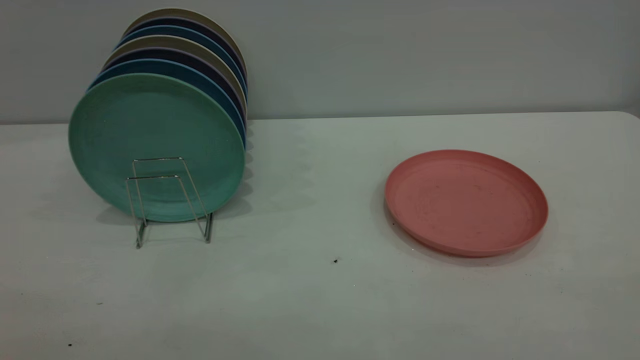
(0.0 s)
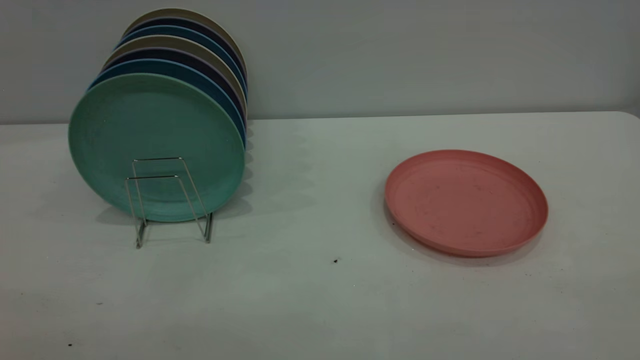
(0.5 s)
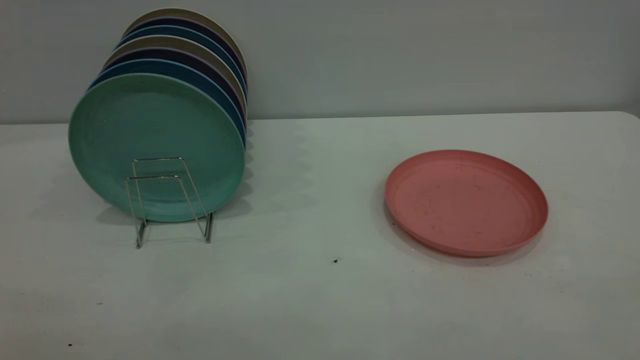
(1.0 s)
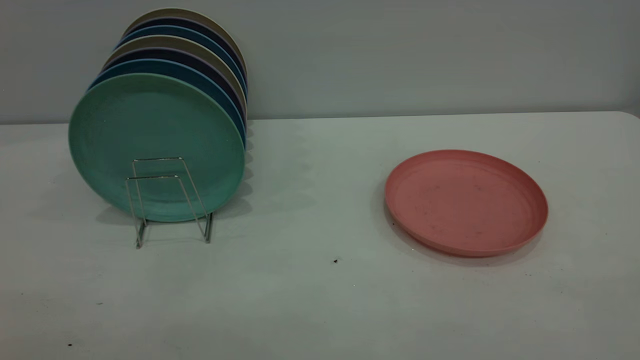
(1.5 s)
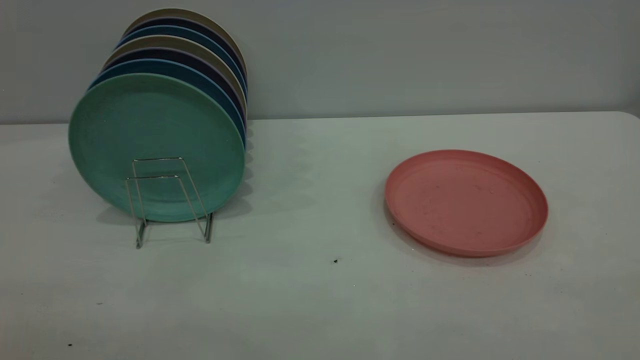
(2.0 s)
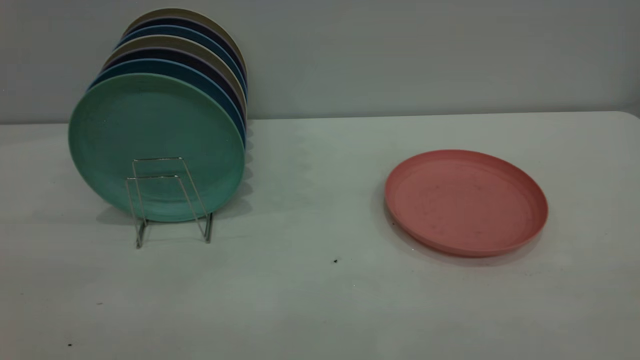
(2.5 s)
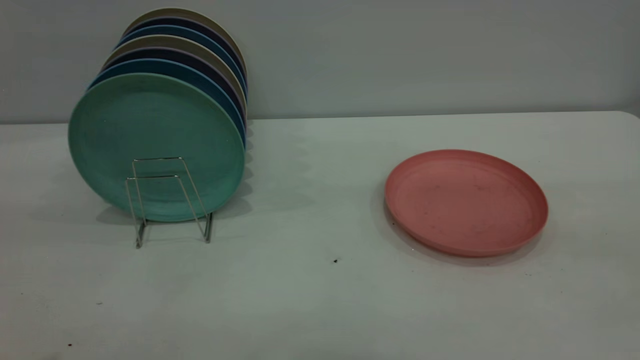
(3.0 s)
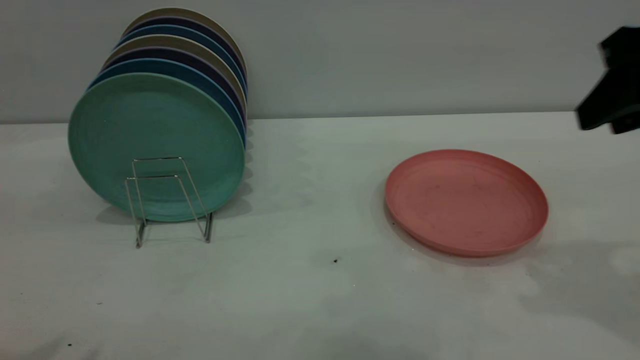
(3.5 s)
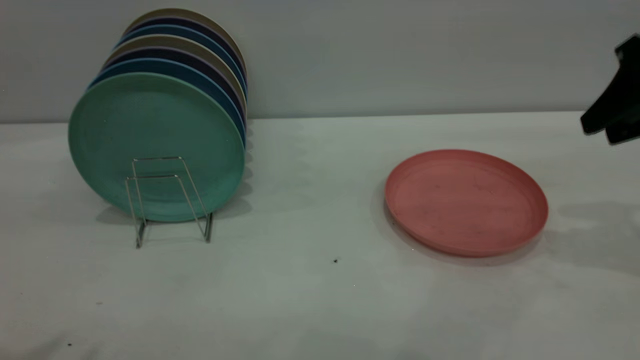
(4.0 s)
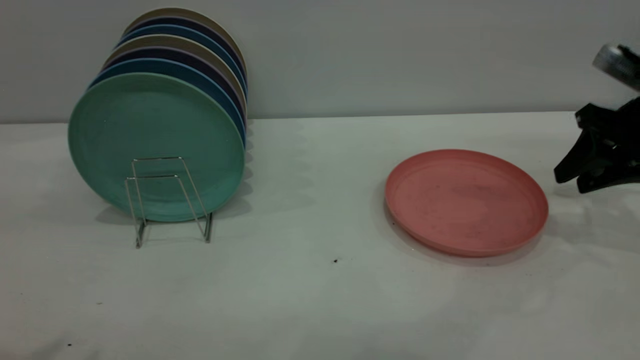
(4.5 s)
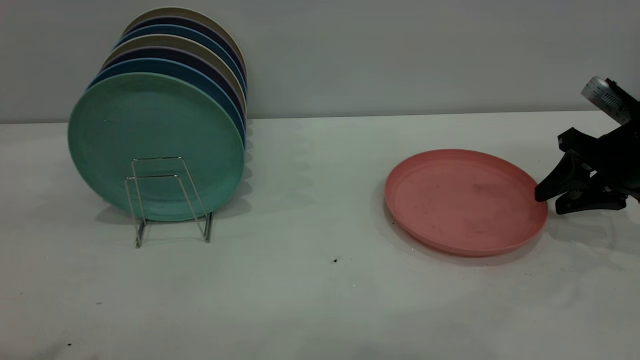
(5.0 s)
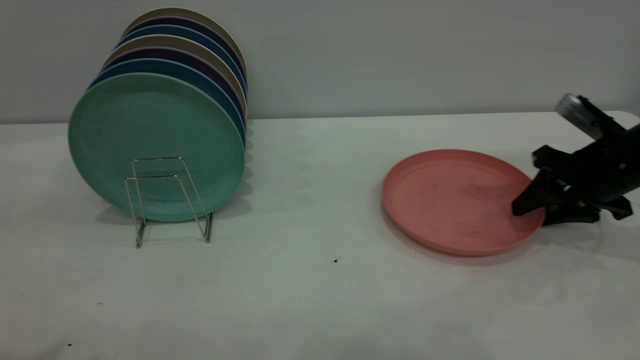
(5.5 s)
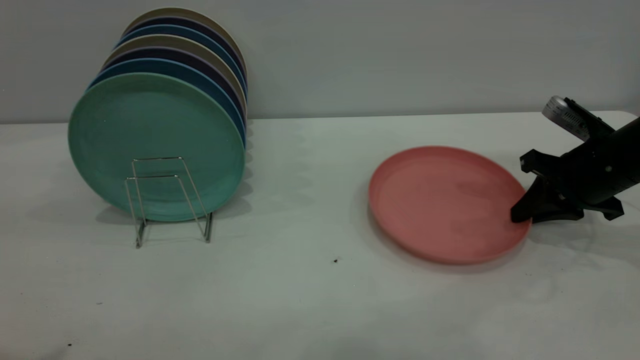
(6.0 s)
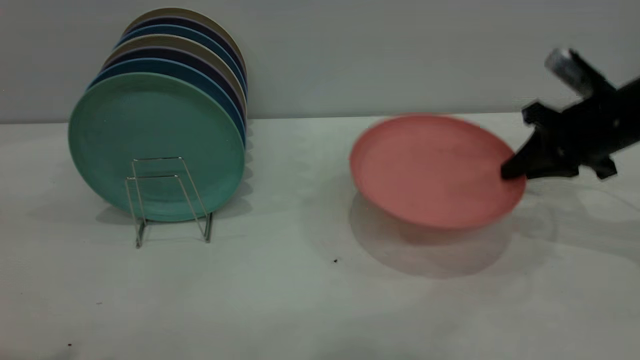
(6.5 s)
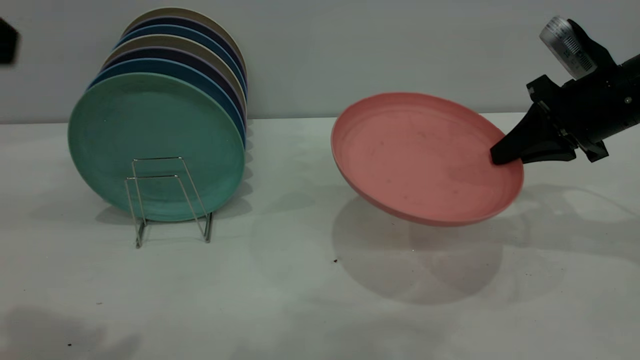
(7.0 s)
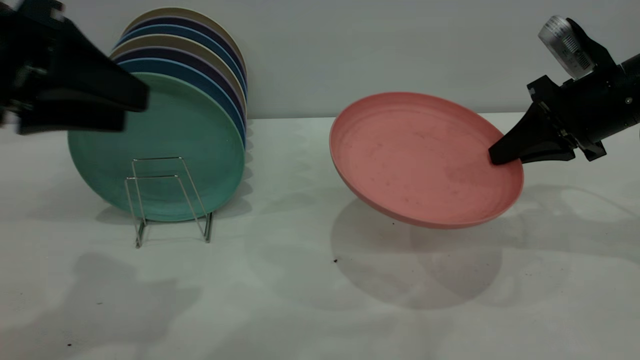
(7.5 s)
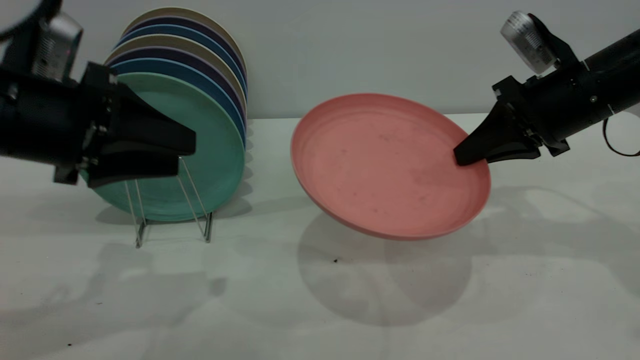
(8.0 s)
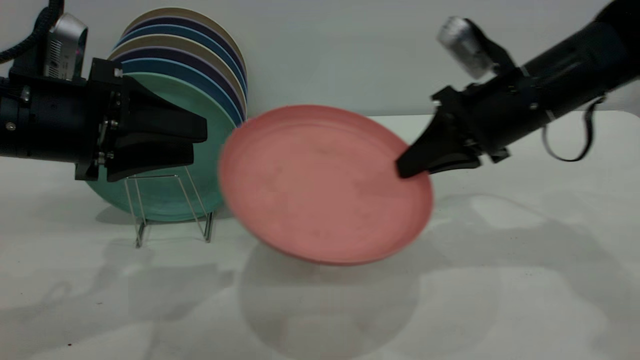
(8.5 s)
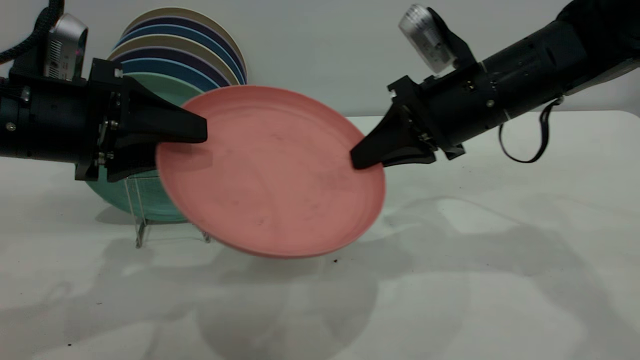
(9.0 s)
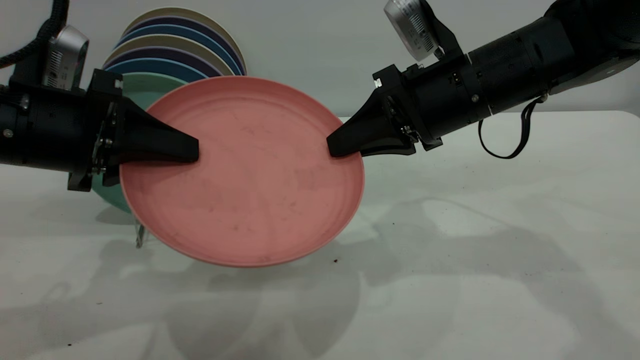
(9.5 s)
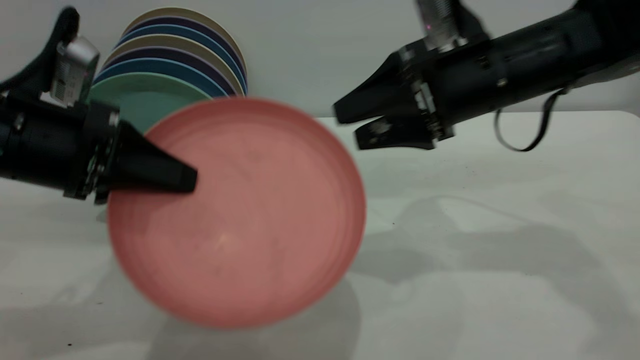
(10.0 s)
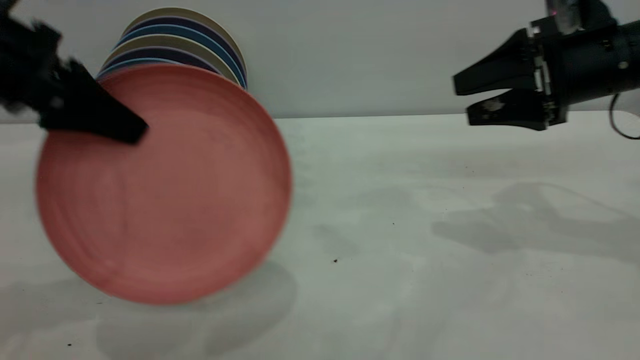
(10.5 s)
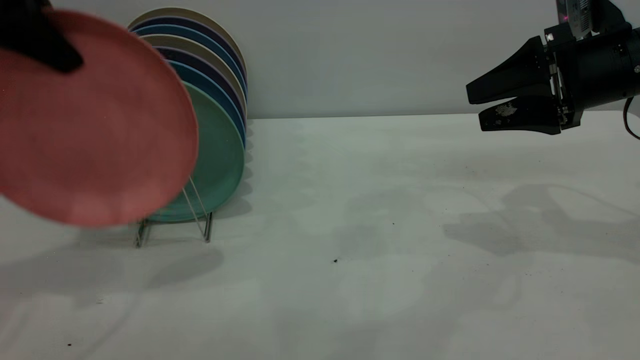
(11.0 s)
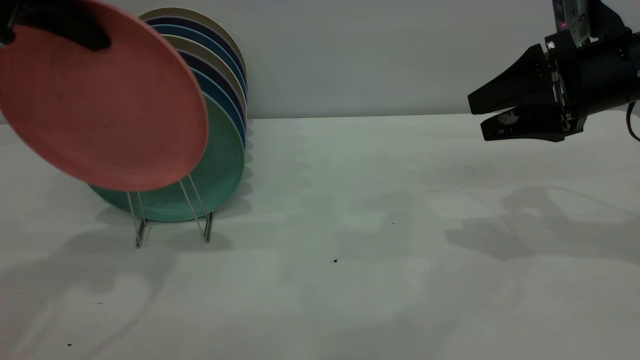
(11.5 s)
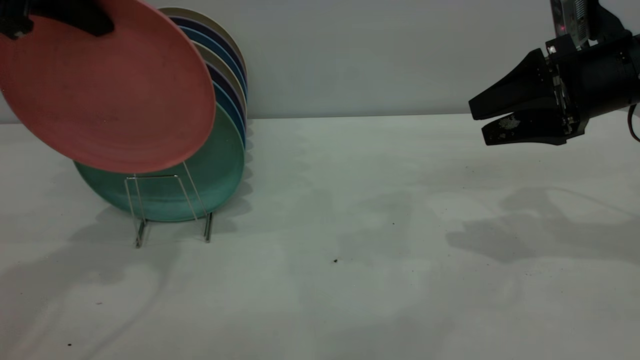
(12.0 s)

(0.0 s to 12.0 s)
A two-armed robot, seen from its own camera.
Task of the whole recording: the right gripper grasp the pink plate, the right gripper pass the pink plate to the left gripper, and the left gripper place the pink plate on the plate rack.
Step, 0.0 s - 6.5 s: Pick up the plate with the right gripper.
Step, 7.0 s - 10.0 s: Pass the plate from the right gripper to the left gripper.
2.0 s - 4.0 s: The right gripper shifts about 40 cm forward.
4.0 s - 6.0 s: The right gripper is displaced downward by some 15 cm, and closes its fingers.
6.0 s - 8.0 s: The right gripper travels upward and to the left by some 10 cm, while the left gripper moves downward and forward, approximately 25 cm.
8.0 s - 10.0 s: The right gripper moves to the left, about 10 cm, and opens up, while the left gripper closes up.
10.0 s - 12.0 s: The right gripper travels to the right by about 10 cm, while the left gripper heads upward and forward, covering approximately 20 cm.

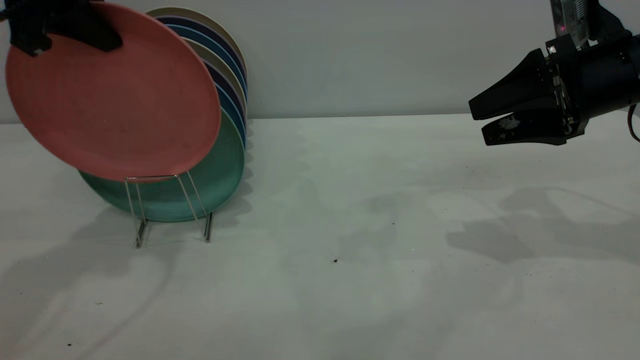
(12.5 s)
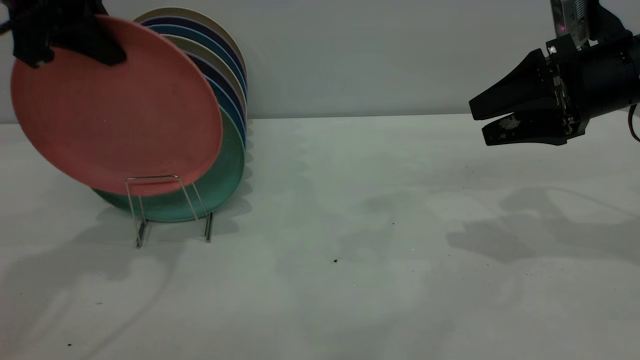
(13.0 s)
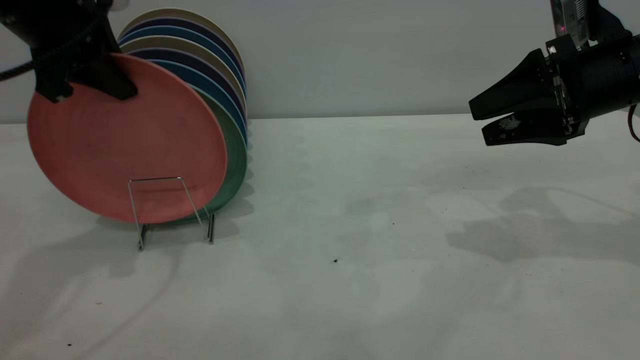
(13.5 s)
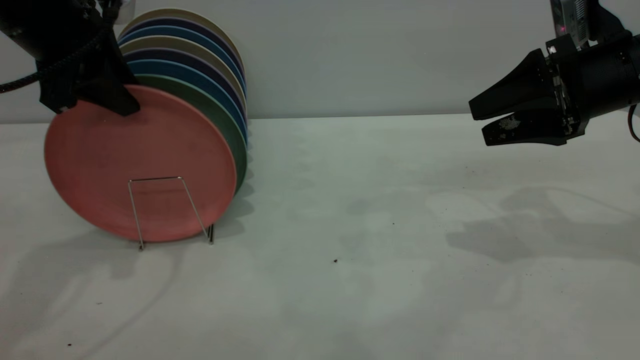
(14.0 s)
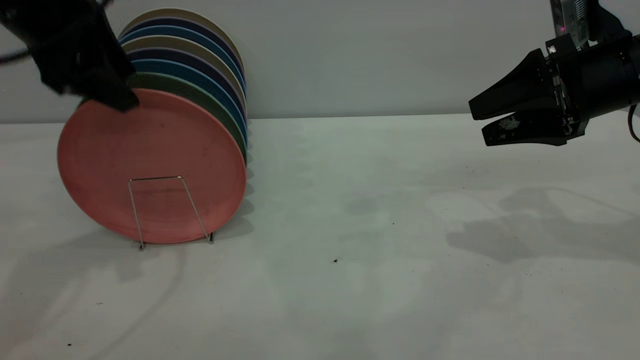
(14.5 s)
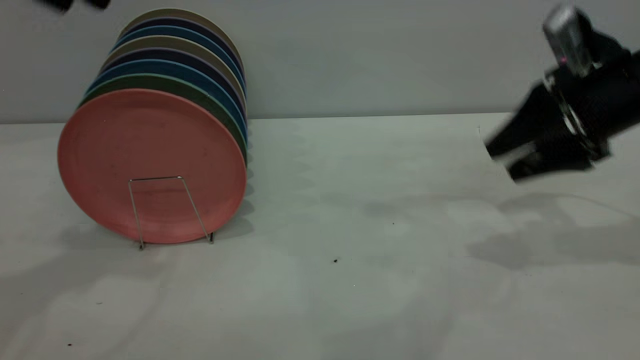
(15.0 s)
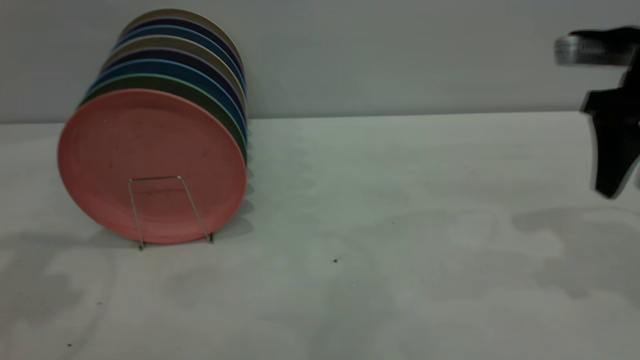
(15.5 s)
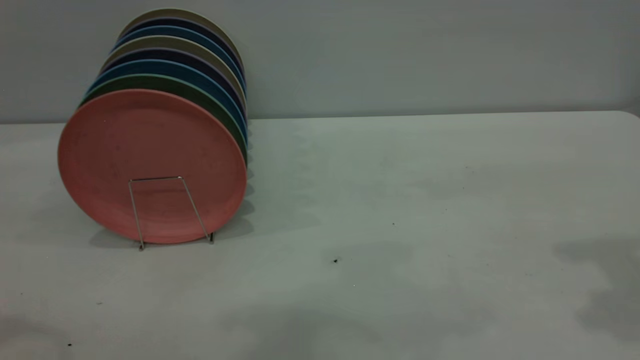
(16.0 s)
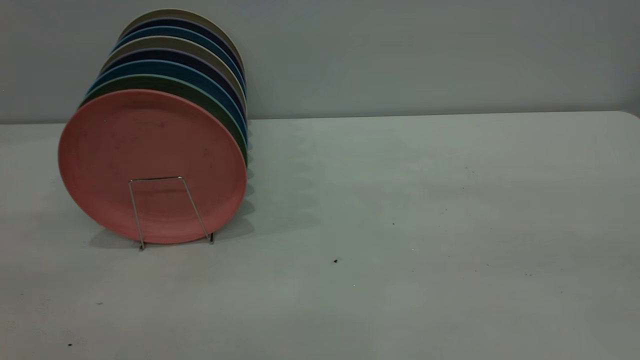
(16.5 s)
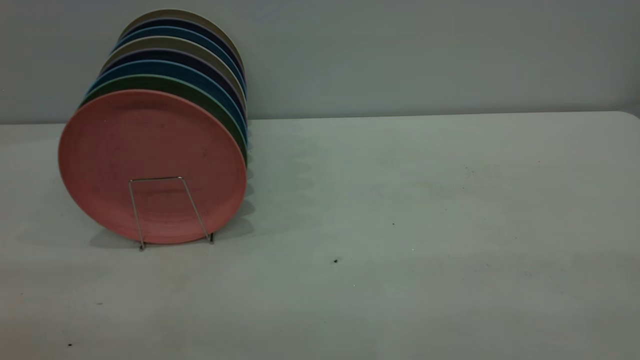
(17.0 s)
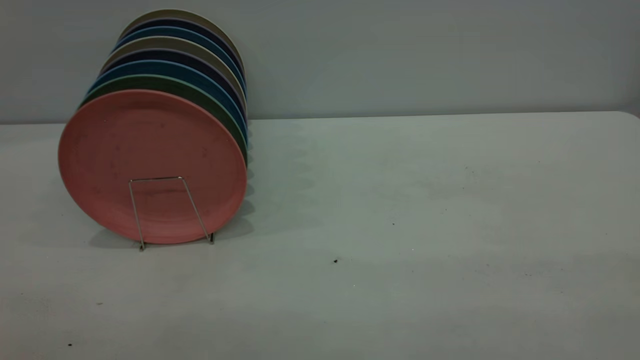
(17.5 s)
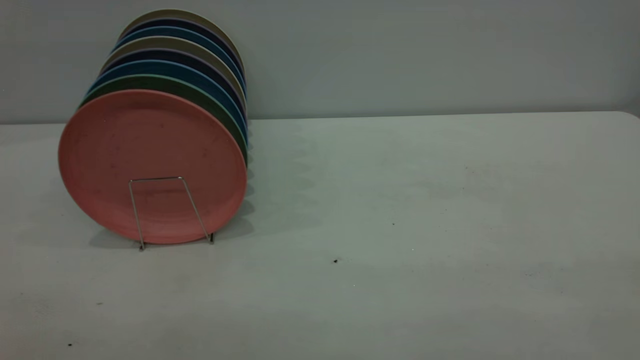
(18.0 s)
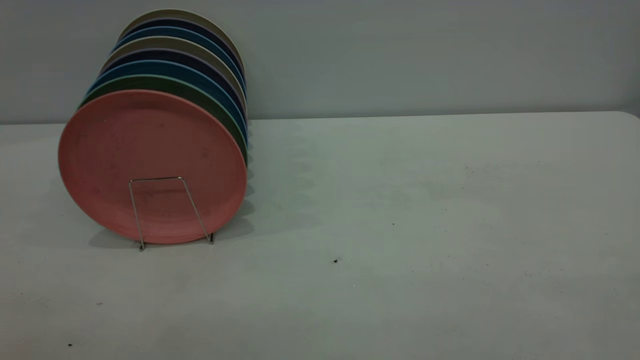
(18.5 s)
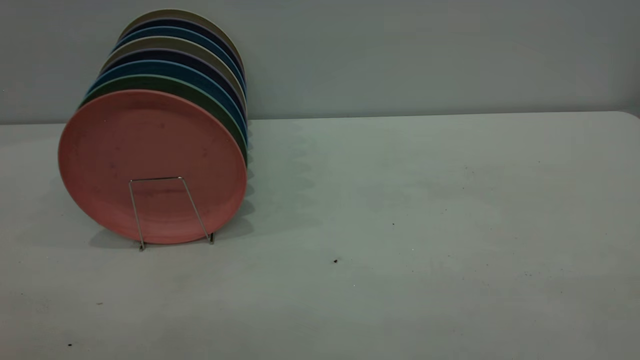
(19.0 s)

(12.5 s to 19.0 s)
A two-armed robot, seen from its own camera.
Task of the whole recording: the right gripper grasp the pink plate, the right gripper pass the pink plate to the left gripper, and the left gripper place the pink plate on the plate rack.
Step, 12.5 s - 14.5 s: Place the plate on the shelf.
12.5 s - 14.5 s: The left gripper opens.
14.5 s - 17.0 s: The grippers both shift backward by approximately 35 cm.

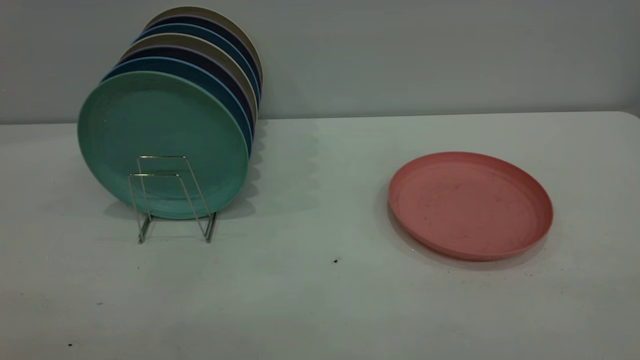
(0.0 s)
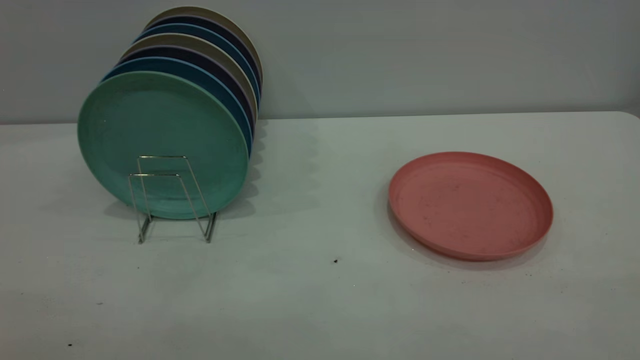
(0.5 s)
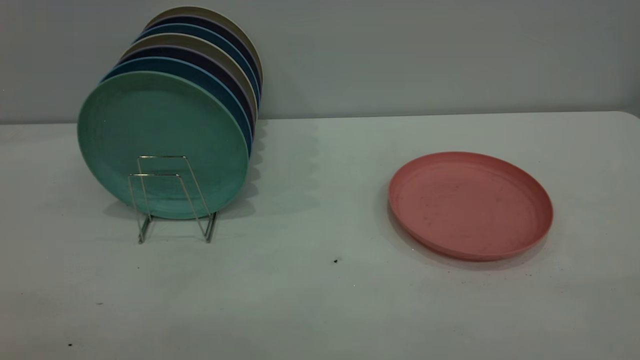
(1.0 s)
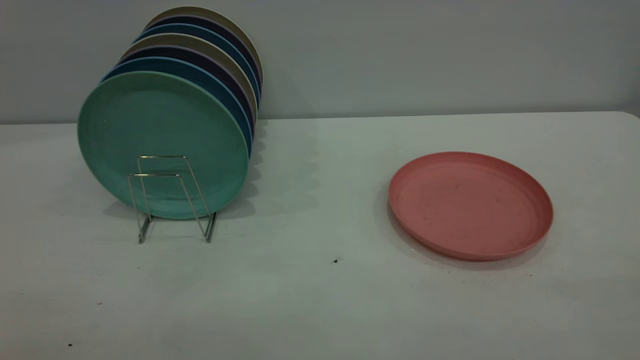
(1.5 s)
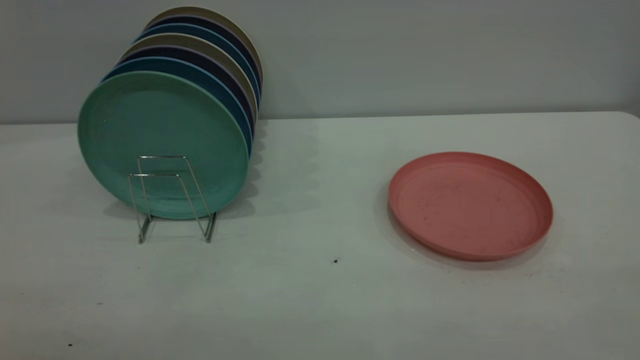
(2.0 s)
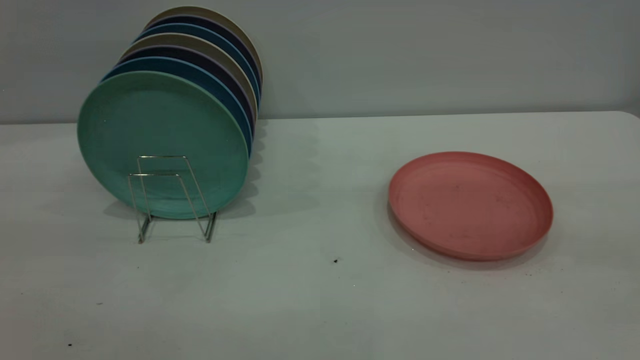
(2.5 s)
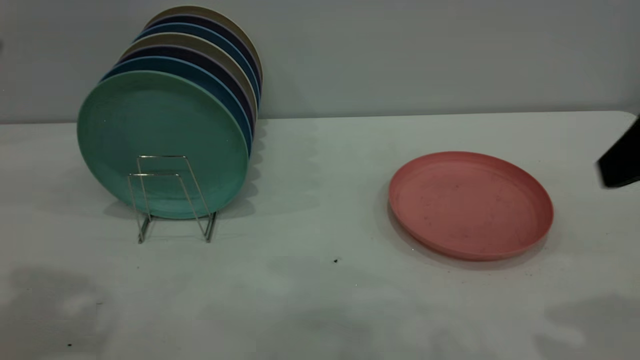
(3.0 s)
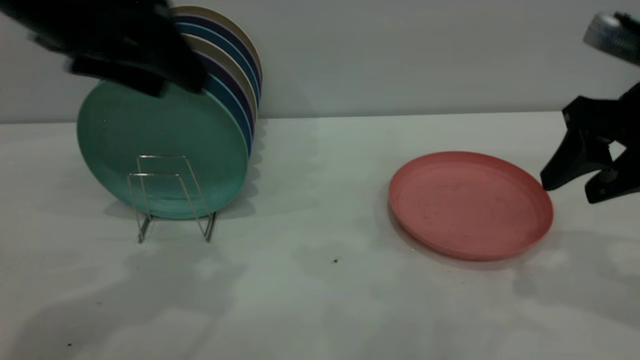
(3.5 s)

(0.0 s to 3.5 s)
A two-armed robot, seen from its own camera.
Task of the whole recording: the right gripper grasp the pink plate, the right gripper pass the pink plate to the left gripper, and the left gripper place the pink plate on the plate rack.
2.0 s - 3.5 s: The left gripper shifts some 35 cm forward, while the right gripper shifts about 35 cm forward and downward.
